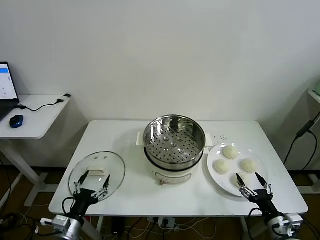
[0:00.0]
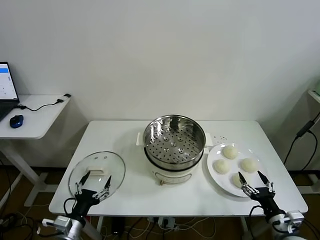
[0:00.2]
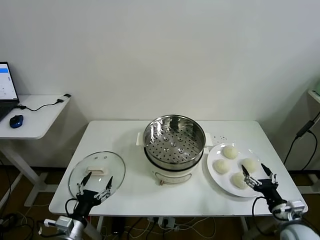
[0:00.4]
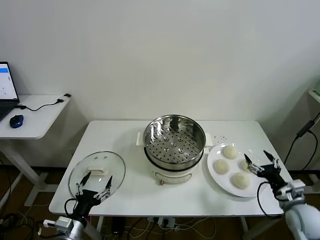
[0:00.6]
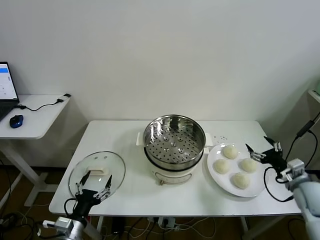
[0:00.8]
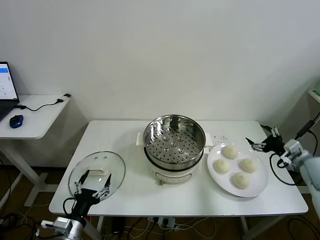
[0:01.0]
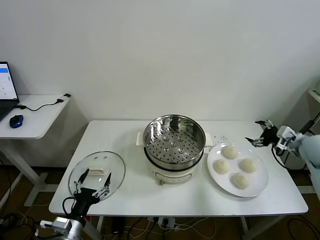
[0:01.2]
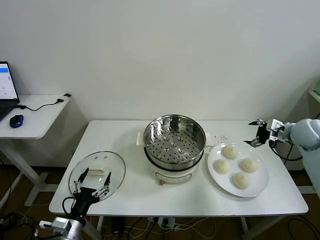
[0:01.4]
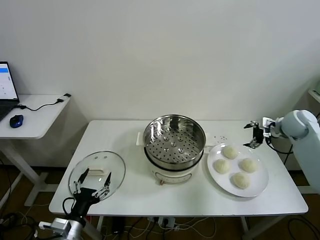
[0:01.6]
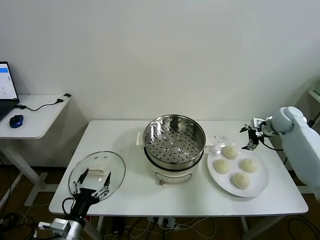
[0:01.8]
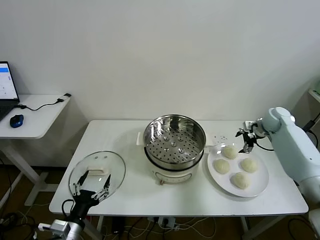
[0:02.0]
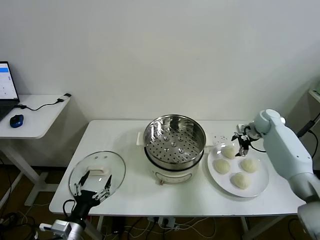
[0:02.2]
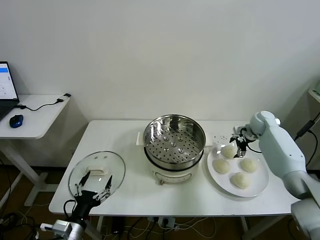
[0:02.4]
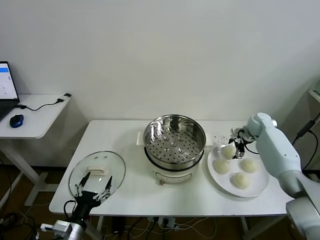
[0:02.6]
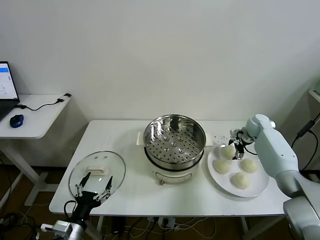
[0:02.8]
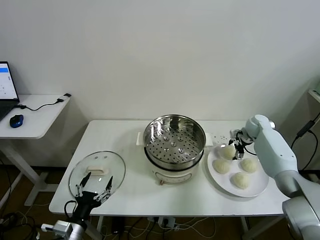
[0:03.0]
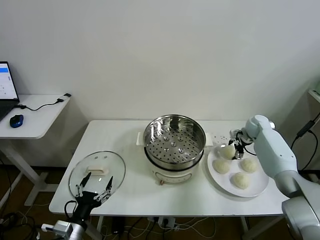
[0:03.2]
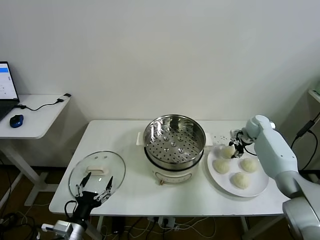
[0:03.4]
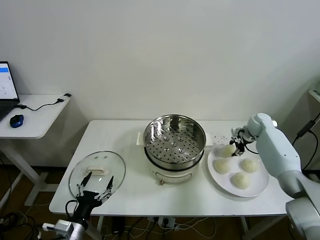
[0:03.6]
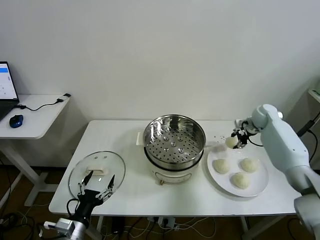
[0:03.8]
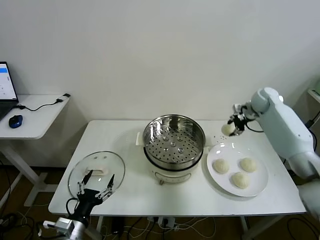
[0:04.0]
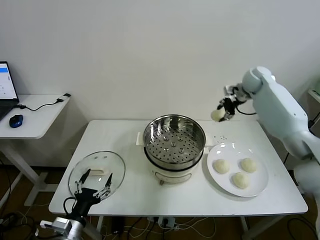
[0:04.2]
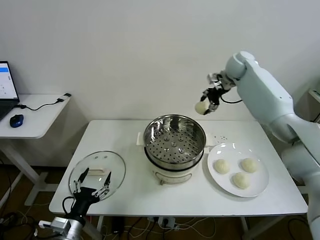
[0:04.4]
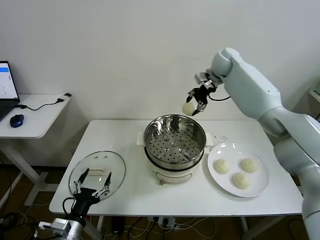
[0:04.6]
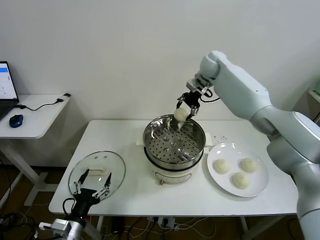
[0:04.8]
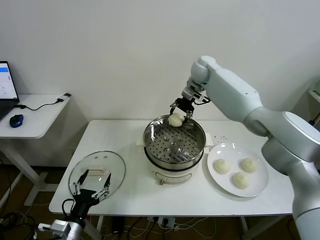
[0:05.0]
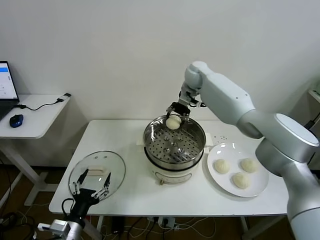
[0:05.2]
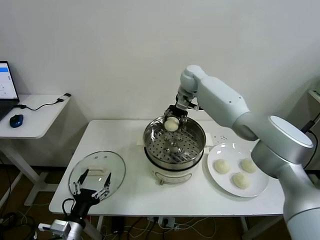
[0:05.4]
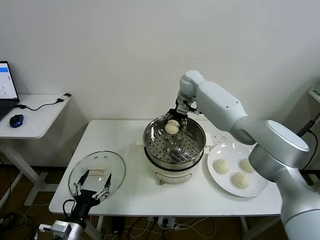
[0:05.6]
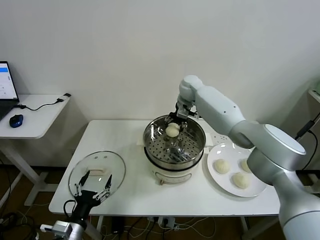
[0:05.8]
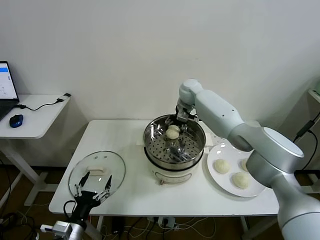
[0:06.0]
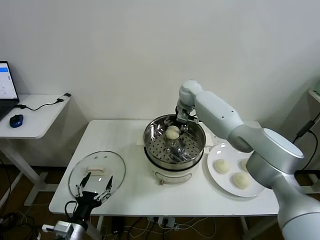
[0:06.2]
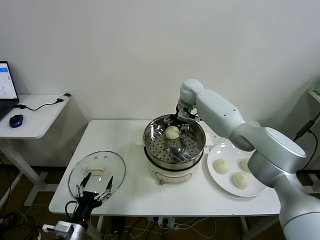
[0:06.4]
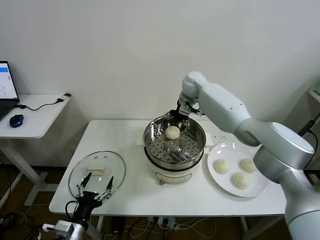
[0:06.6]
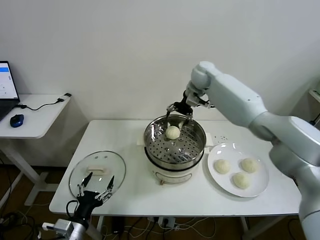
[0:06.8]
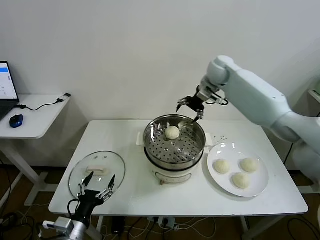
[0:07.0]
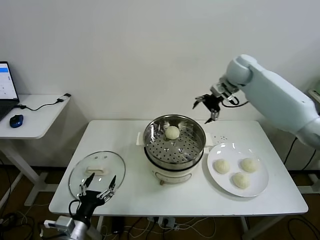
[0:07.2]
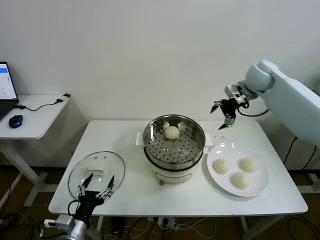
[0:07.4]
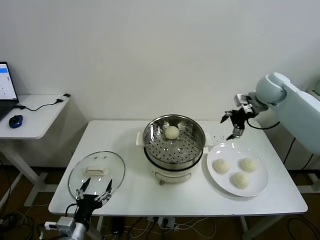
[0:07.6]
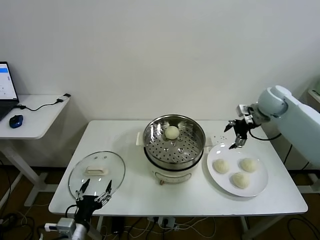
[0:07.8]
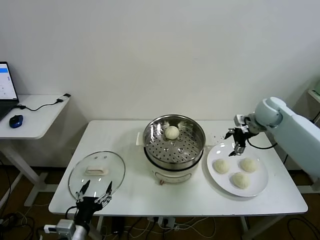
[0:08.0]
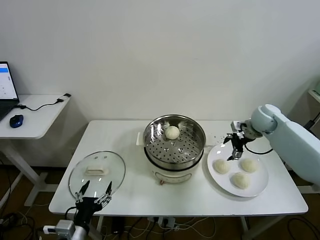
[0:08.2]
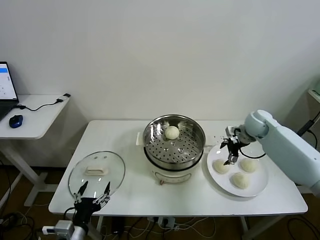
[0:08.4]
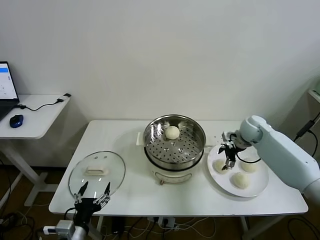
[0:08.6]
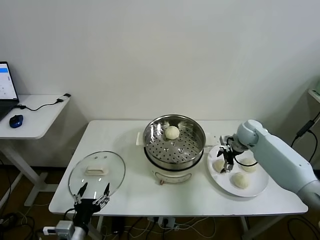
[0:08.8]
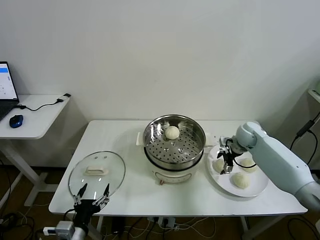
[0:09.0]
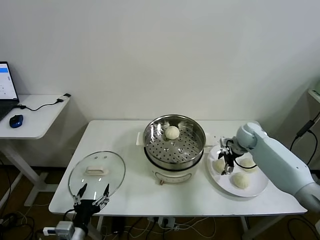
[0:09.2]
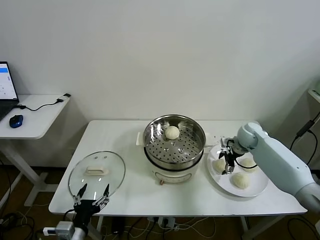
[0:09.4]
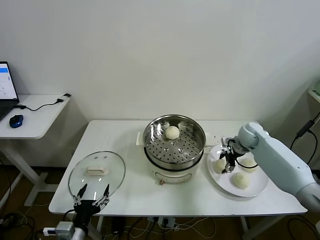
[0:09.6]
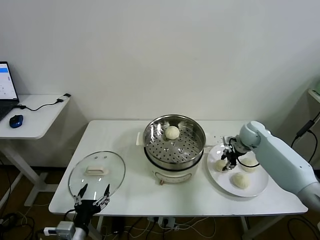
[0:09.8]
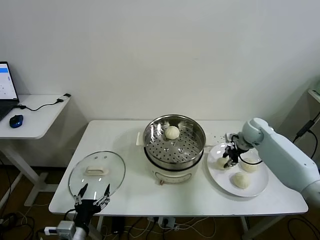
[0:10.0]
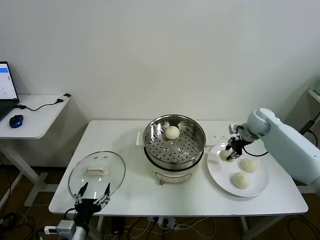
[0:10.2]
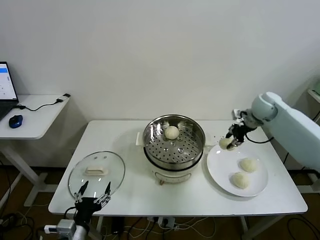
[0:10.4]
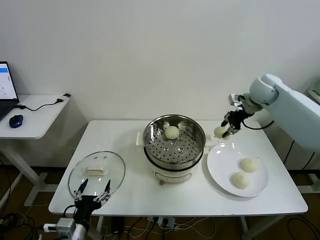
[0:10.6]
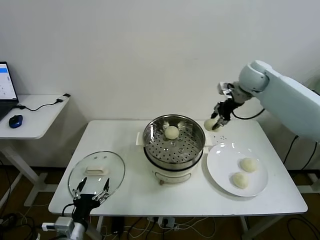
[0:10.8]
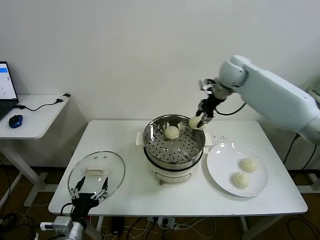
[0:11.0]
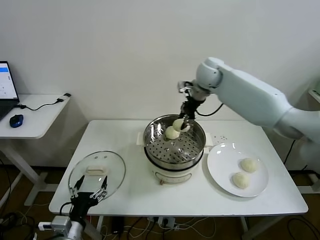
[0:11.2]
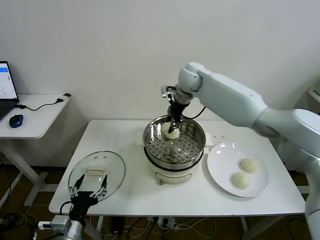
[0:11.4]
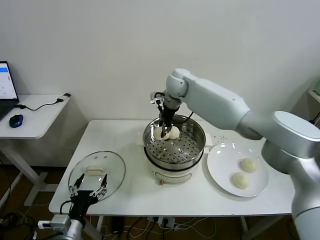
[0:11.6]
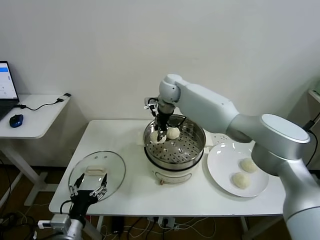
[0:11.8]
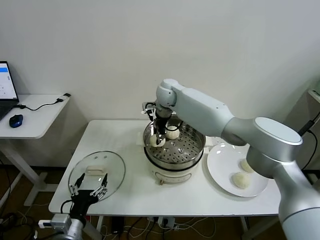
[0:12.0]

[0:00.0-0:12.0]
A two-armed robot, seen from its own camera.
Task of the whole recording: take steamed baozi put them in steamer then cover it.
Step, 0:00.0 to 0:03.4: Grasp the baozi in the plate with right gripper.
Step, 0:03.6 to 0:06.4: Place the baozi on the steamer with right gripper.
Step, 0:06.6 to 0:09.8: Grasp the baozi in the plate with right gripper.
0:01.6 to 0:03.0: The right gripper travels downward, forward and to the left by some 15 cm.
0:03.0 to 0:04.4: The right gripper goes approximately 30 cm upward and to the left, and closes.
0:04.4 to 0:06.0: The right gripper travels to the left and downward by about 20 cm.
0:06.0 to 0:07.6: The right gripper shifts roughly 25 cm to the right and backward, and opens.
0:07.6 to 0:09.0: The right gripper heads downward, covering some 20 cm.
0:09.0 to 0:10.4: The right gripper goes approximately 15 cm upward, and closes.
0:10.4 to 0:12.0: The right gripper shifts approximately 35 cm to the left.

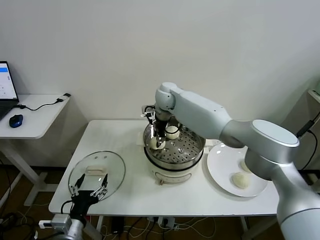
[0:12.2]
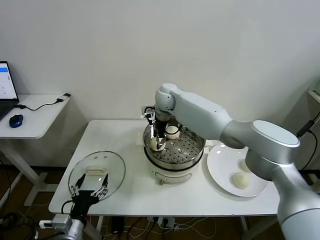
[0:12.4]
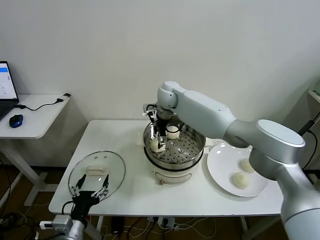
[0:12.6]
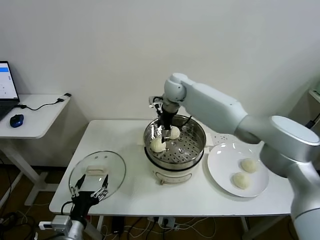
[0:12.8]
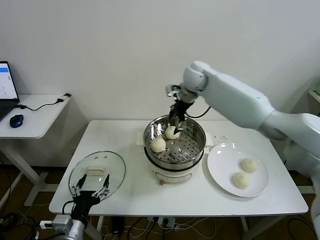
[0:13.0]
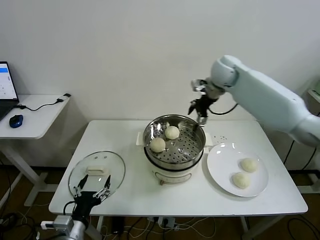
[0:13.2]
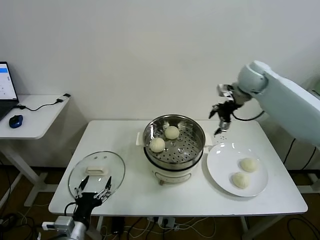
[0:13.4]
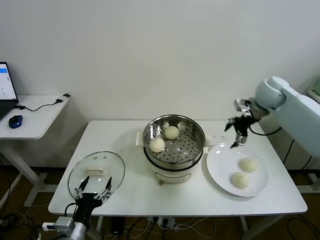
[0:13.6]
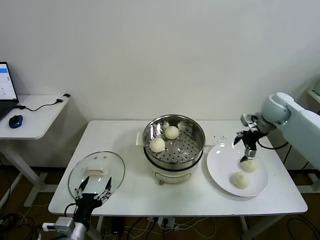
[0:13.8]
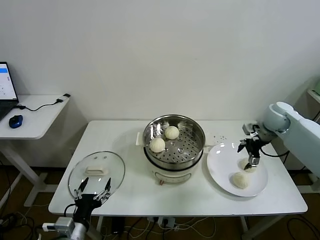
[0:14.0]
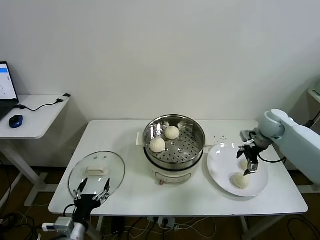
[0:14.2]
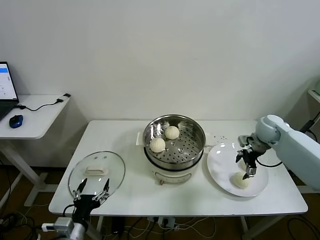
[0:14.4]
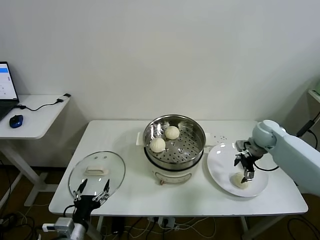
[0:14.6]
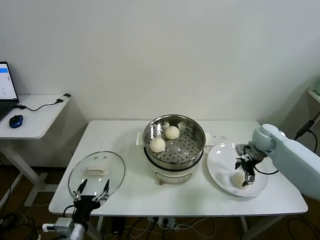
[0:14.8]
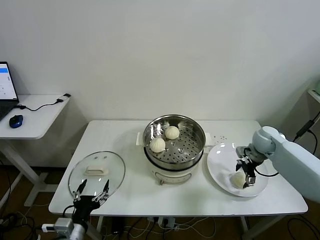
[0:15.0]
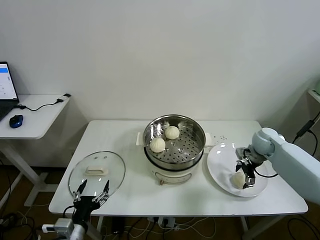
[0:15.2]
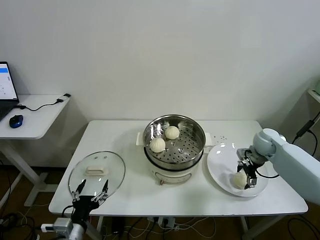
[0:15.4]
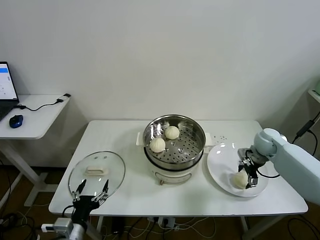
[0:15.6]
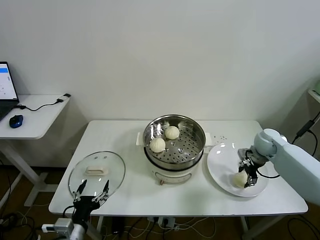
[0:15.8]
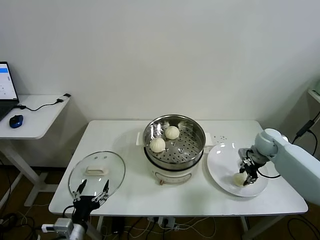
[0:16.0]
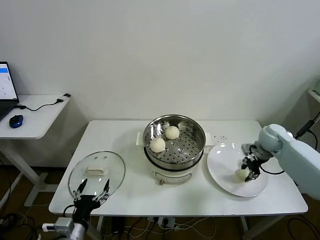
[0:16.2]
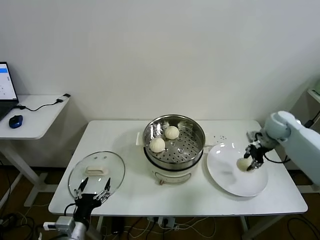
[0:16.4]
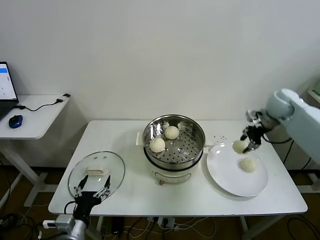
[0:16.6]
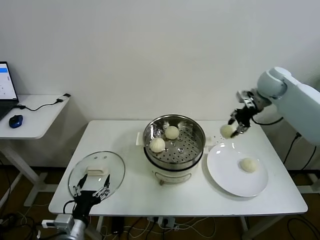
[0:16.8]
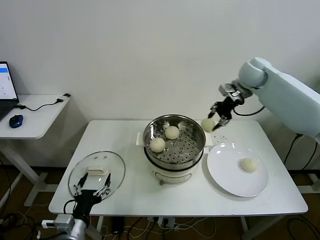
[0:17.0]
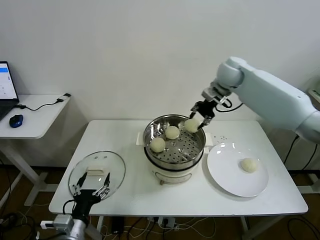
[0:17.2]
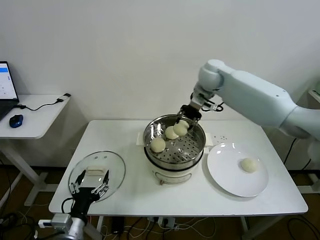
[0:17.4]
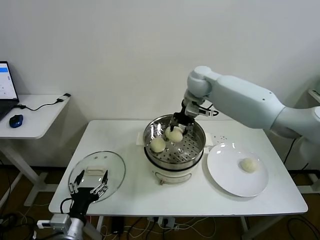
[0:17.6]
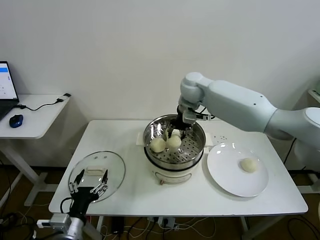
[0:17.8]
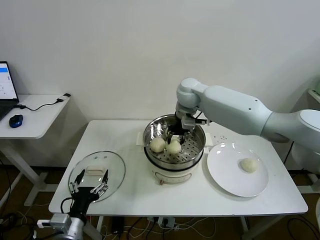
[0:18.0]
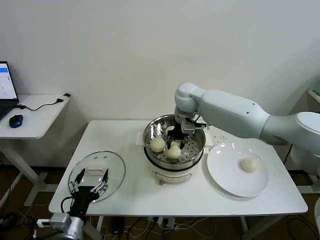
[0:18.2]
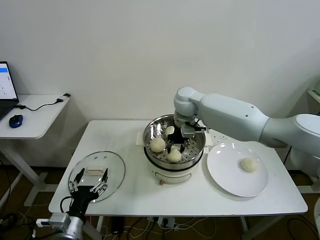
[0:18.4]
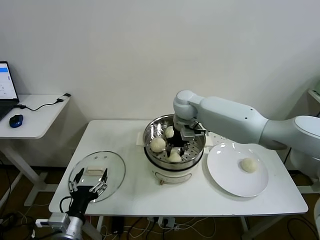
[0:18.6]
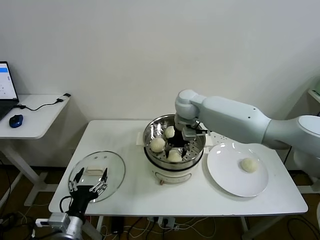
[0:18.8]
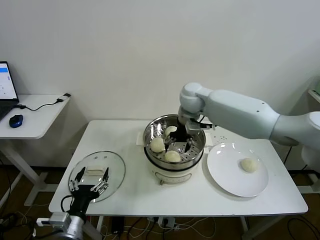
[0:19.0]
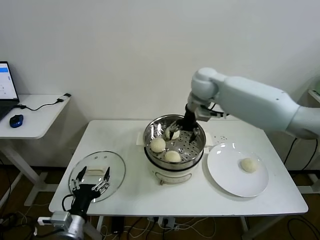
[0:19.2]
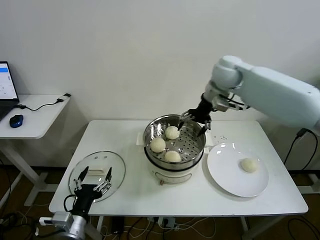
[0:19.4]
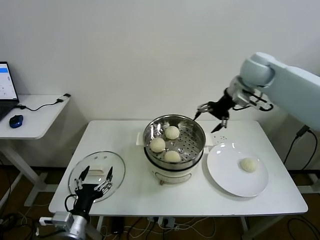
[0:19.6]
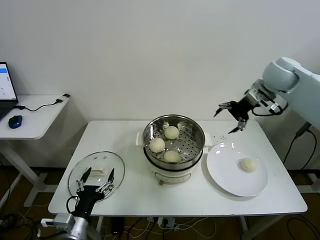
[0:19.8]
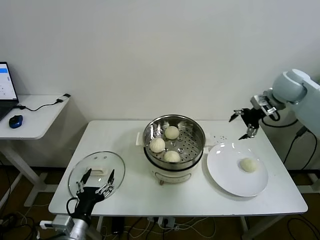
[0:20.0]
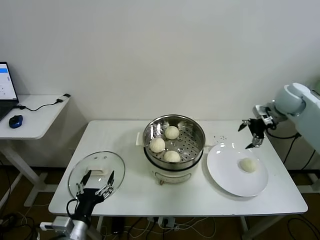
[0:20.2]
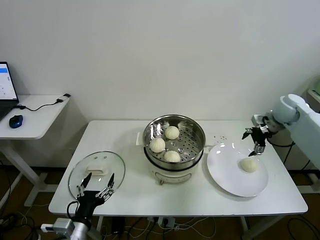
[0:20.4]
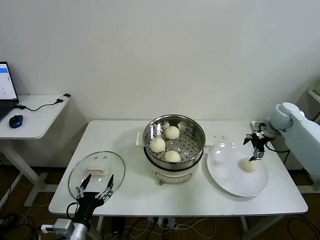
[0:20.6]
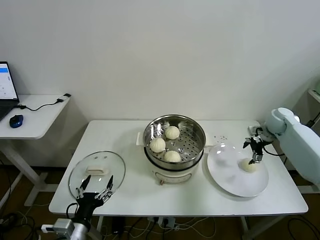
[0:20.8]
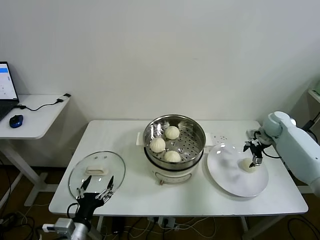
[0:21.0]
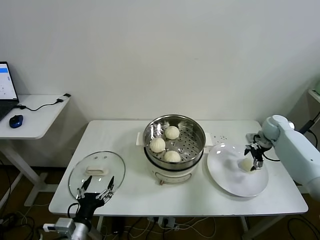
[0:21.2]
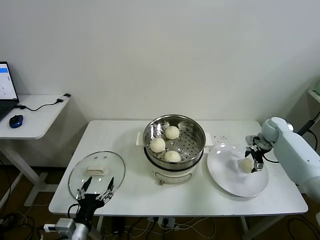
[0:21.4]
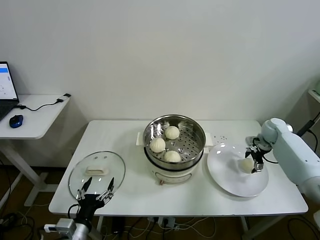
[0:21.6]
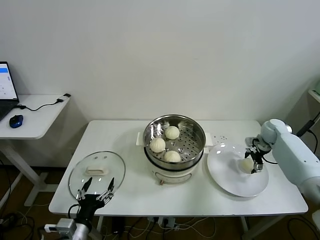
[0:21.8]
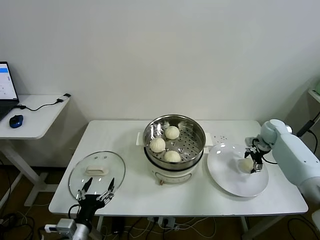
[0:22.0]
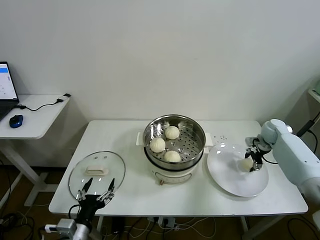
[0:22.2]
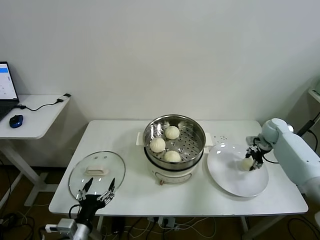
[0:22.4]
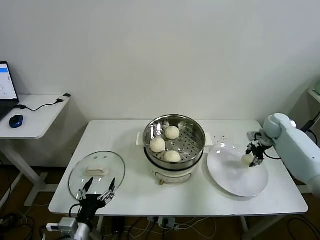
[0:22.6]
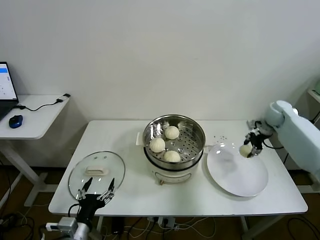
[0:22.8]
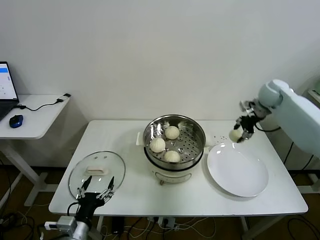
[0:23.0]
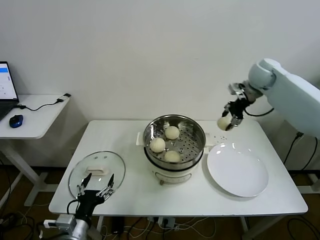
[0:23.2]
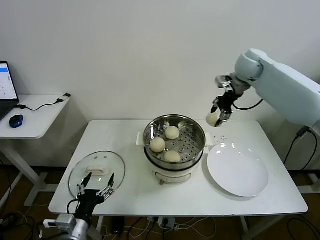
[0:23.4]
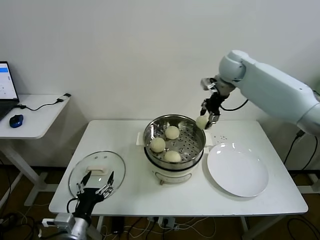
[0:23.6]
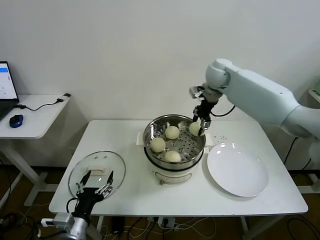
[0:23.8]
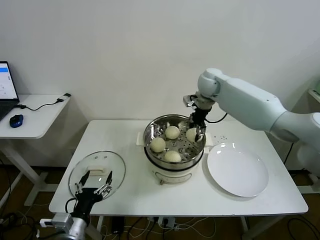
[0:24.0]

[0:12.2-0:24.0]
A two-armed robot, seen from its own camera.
Task of the whole recording: take steamed baozi put them in steamer then cover it.
Step, 0:13.0 to 0:16.0: Grasp the baozi in the plate with right gripper.
Step, 0:16.2 to 0:19.2: Place the baozi on the steamer with right gripper.
Step, 0:19.4 to 0:22.2: Grasp the baozi in the plate with right gripper.
0:12.2 to 0:13.6: The right gripper shifts approximately 35 cm to the right, and opens up.
0:13.6 to 0:15.2: The right gripper goes about 20 cm downward.
0:15.2 to 0:16.6: The right gripper heads upward, covering some 15 cm, and closes its fingers.
0:16.6 to 0:18.2: The right gripper shifts some 30 cm to the left.
0:18.2 to 0:19.6: The right gripper is displaced to the right and upward by about 25 cm, and opens up.
0:19.6 to 0:21.0: The right gripper goes roughly 30 cm downward and to the right.
0:21.0 to 0:22.6: The right gripper closes up.
0:22.6 to 0:24.0: The right gripper heads to the left and upward, covering some 35 cm.
